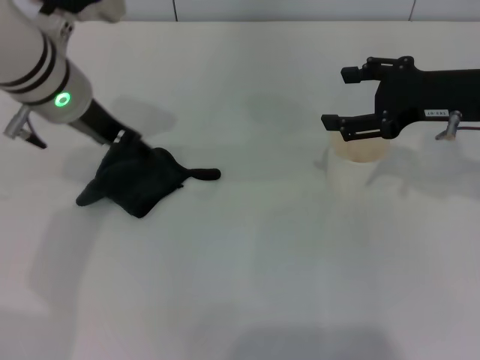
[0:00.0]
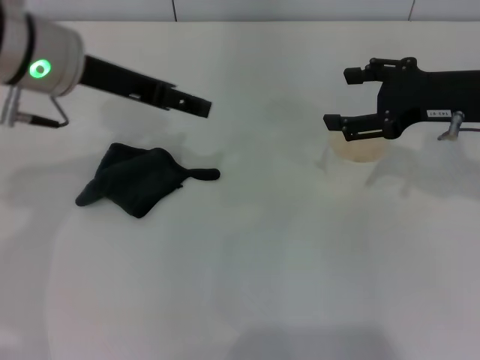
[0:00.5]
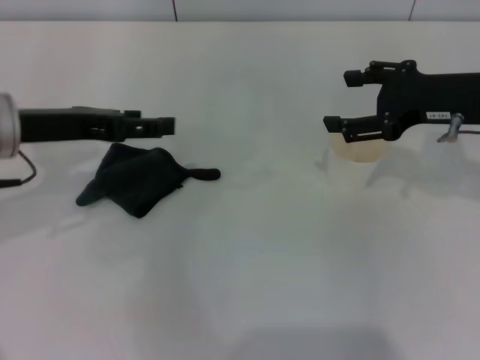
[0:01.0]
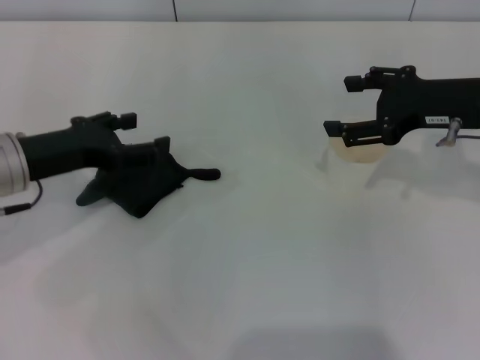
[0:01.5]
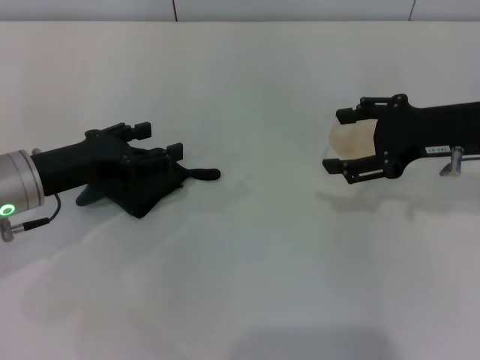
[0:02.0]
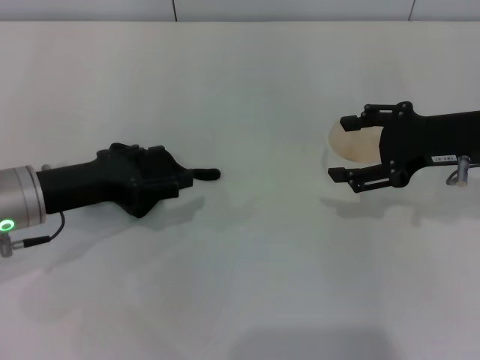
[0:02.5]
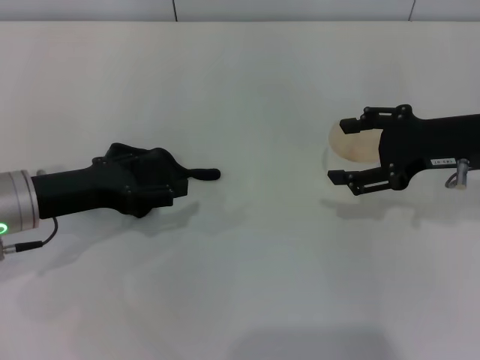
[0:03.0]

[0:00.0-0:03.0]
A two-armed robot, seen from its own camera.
0:00.0 to 0:01.5: The left gripper moves to the left, downward and backward, roughly 15 cm.
0:01.5 to 0:03.0: The grippers stay close to where they were, moving slightly.
